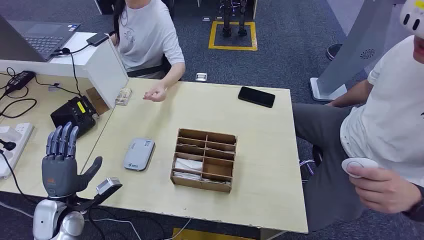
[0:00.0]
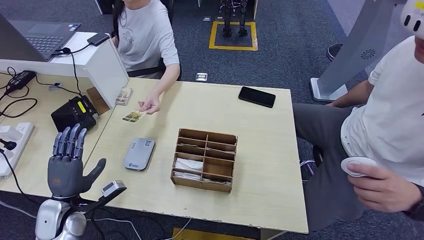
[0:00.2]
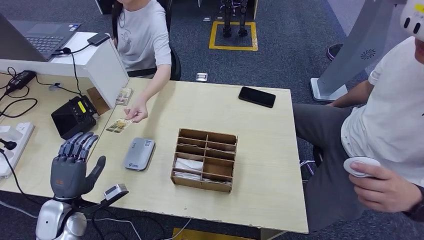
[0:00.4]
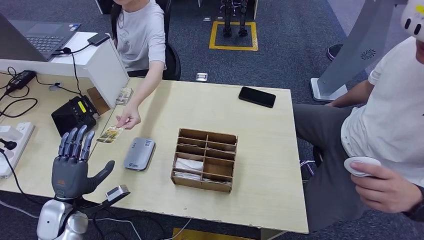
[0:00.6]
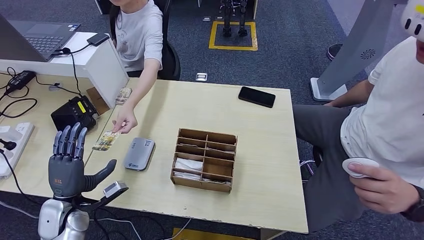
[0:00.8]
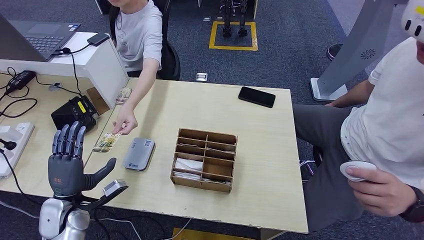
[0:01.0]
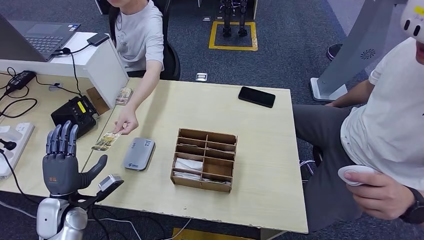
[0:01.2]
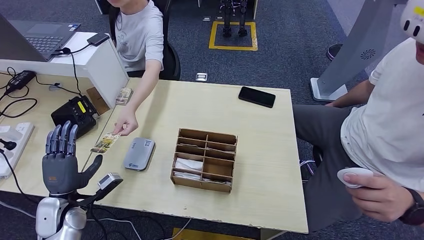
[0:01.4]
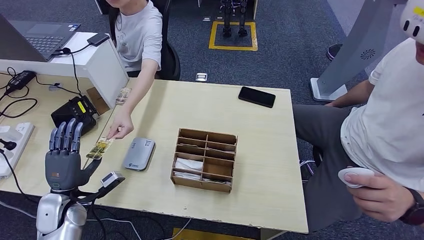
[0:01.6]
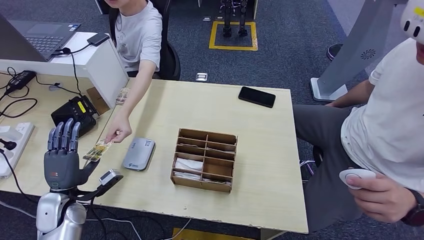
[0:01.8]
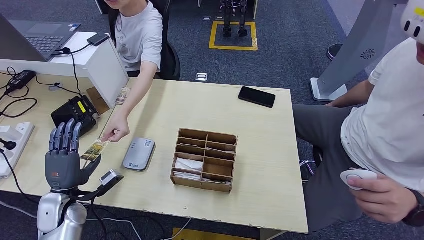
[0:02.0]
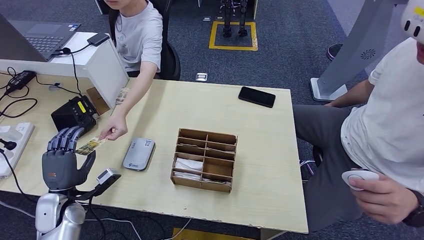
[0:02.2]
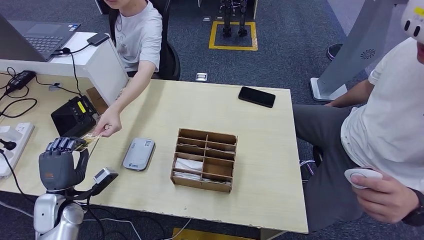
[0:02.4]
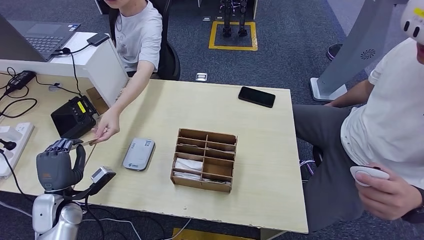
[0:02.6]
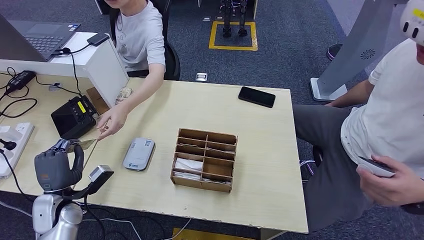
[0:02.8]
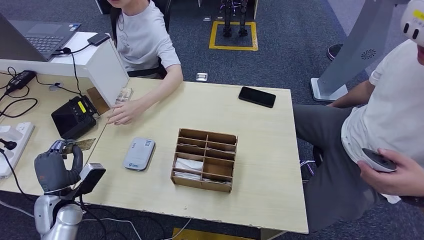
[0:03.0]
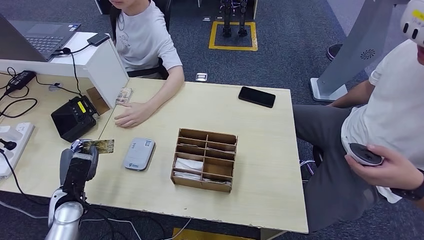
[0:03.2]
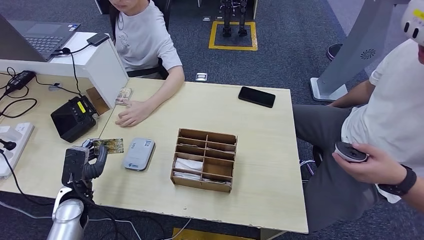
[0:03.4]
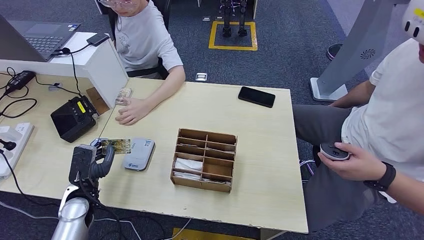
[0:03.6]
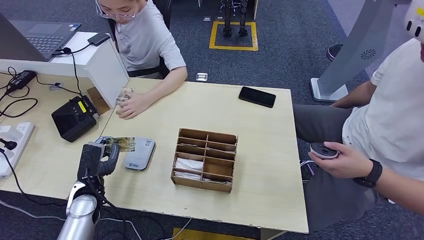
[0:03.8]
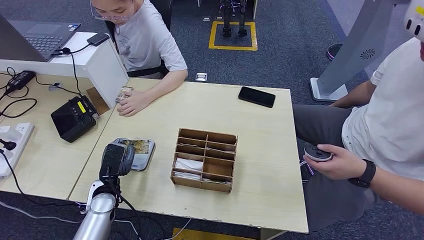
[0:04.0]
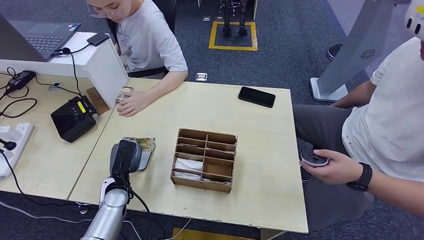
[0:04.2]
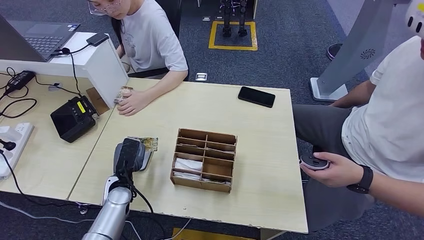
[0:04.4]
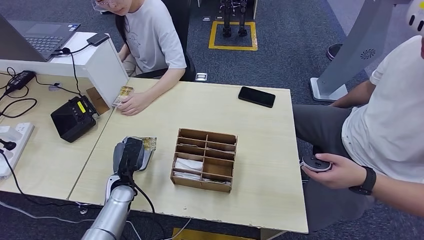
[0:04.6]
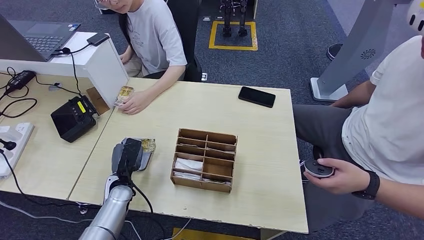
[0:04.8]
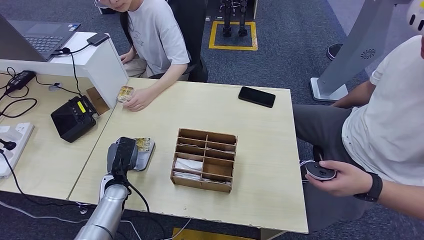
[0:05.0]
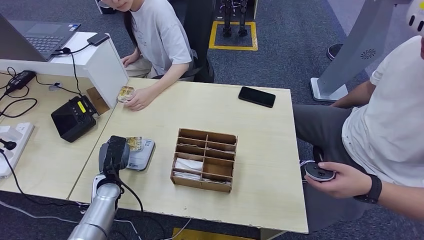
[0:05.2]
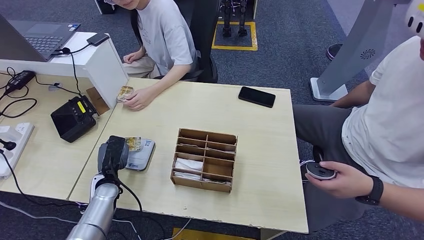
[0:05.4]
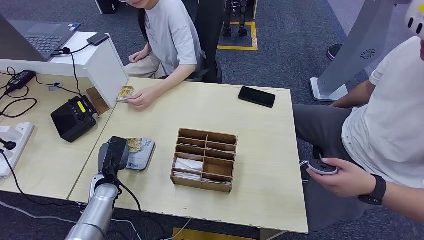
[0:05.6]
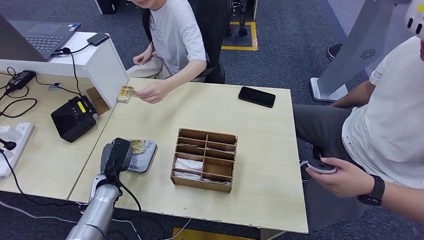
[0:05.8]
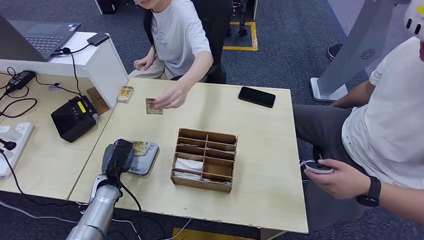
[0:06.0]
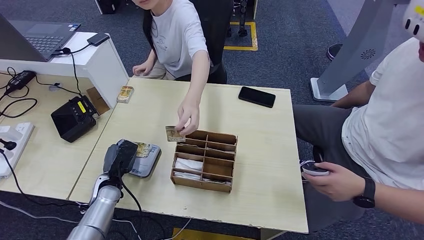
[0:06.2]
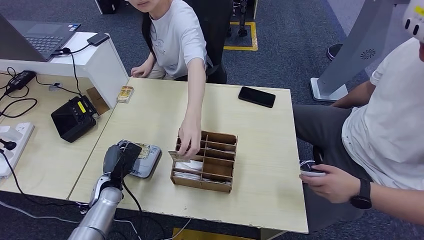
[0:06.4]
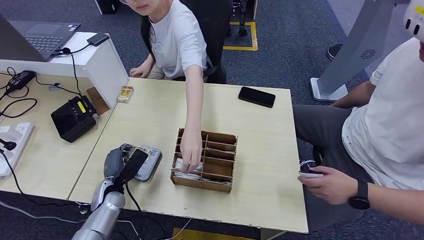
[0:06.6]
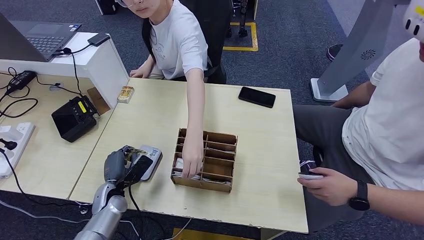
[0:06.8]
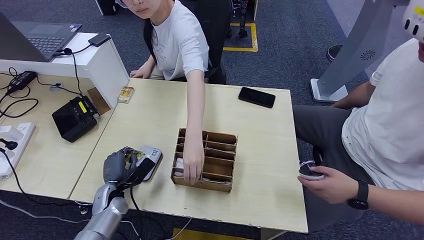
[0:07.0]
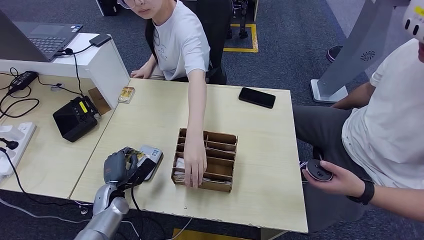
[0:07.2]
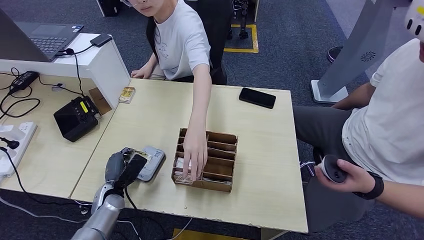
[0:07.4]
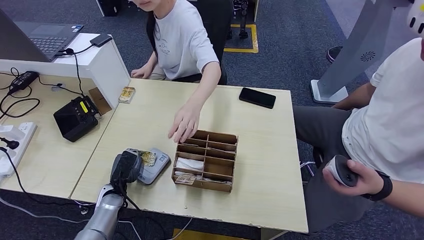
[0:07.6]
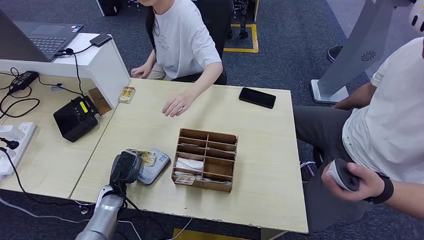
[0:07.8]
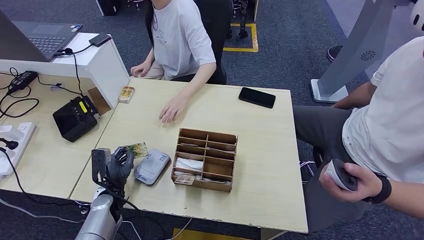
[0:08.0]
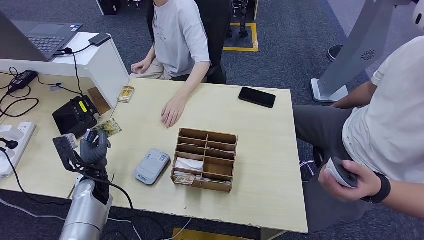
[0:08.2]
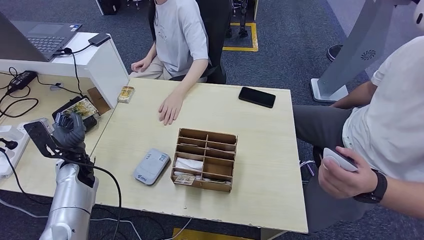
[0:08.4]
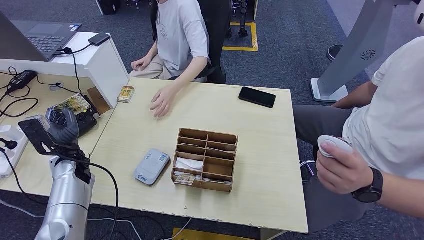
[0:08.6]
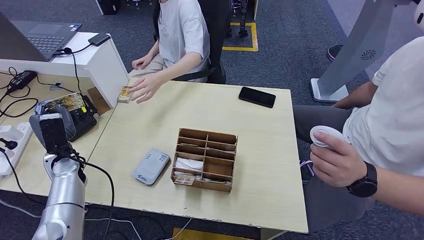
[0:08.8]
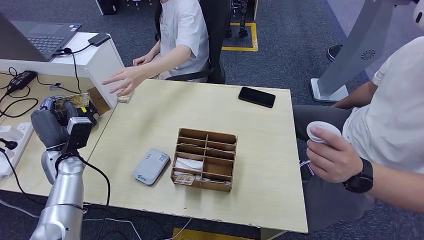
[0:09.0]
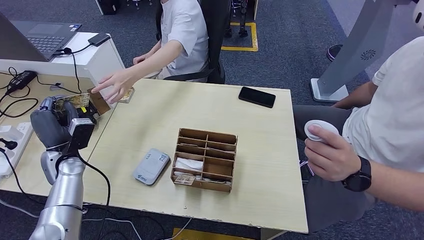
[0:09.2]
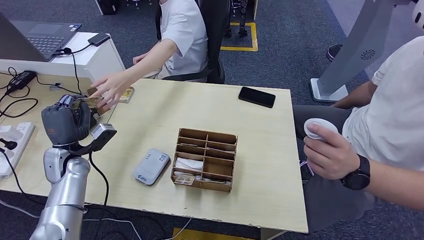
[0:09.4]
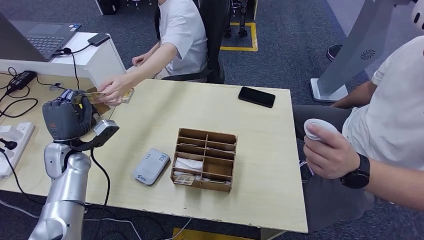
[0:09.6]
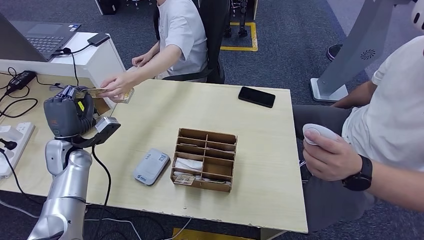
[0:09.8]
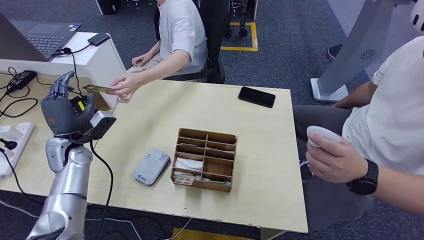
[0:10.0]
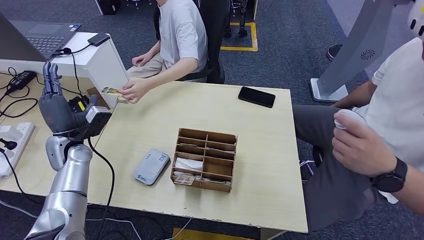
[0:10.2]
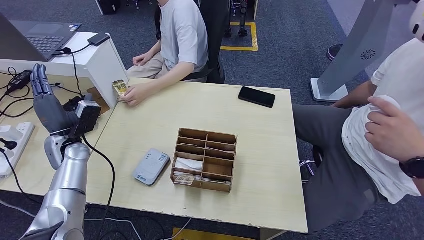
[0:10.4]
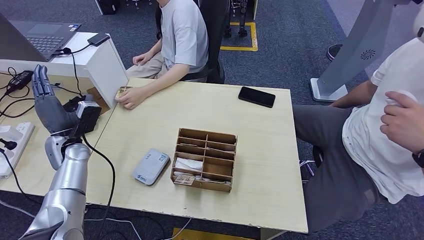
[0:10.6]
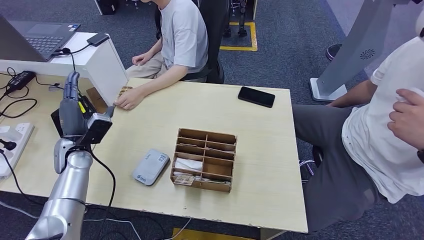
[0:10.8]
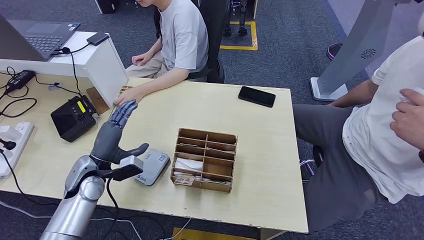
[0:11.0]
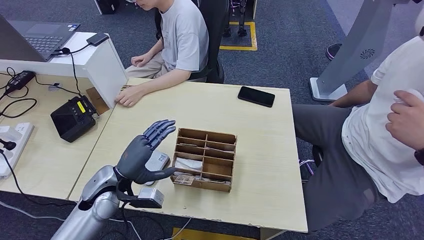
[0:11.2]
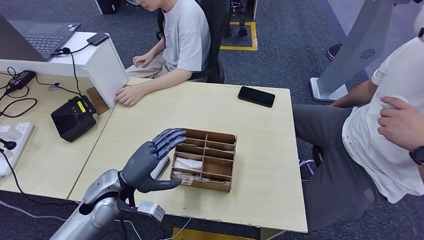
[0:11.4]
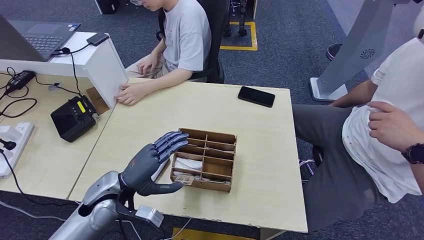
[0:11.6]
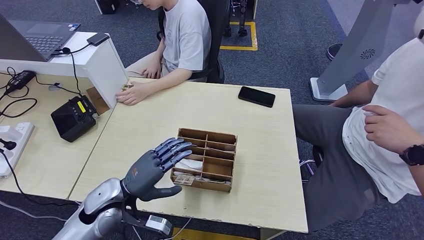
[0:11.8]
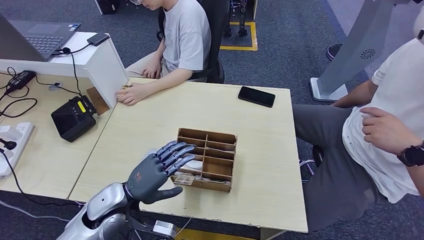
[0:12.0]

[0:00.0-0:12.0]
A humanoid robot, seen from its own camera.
Step, 0:00.0 to 0:03.2: Take the ID card from the person's hand.
Step, 0:03.4 to 0:05.4: Place the ID card on the card reader.
Step, 0:05.8 to 0:10.0: Hand the ID card to the person.
0:01.6 to 0:03.0: The hands stay close to where they were, moving slightly.
0:03.0 to 0:04.4: The left hand moves to the right and forward, some 15 cm.
0:04.4 to 0:06.0: The left hand moves to the left, approximately 5 cm.
0:10.4 to 0:12.0: The left hand shifts roughly 20 cm to the right and backward.

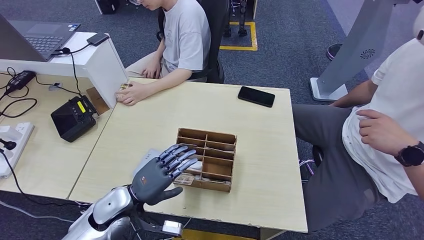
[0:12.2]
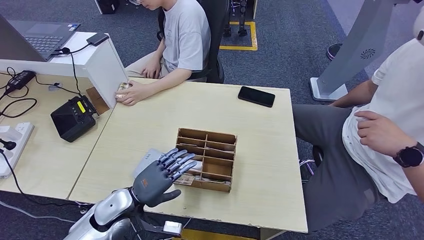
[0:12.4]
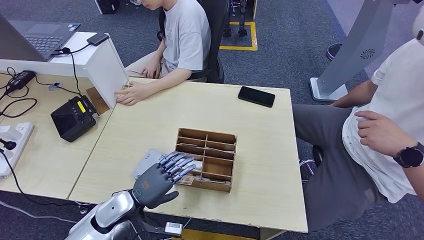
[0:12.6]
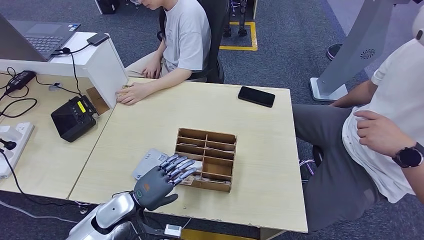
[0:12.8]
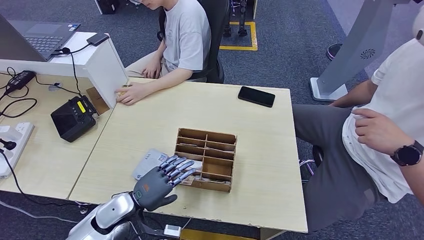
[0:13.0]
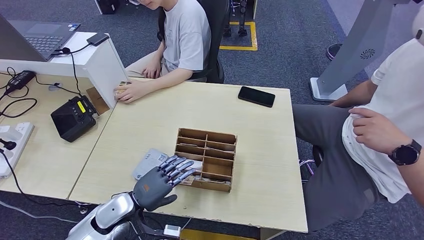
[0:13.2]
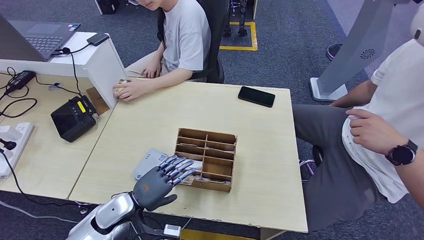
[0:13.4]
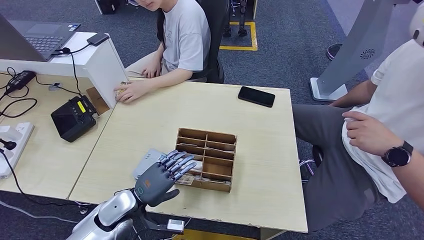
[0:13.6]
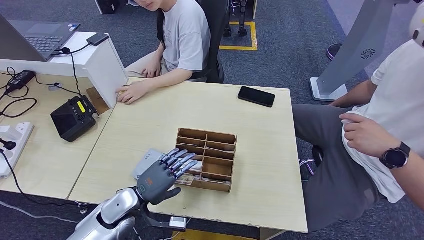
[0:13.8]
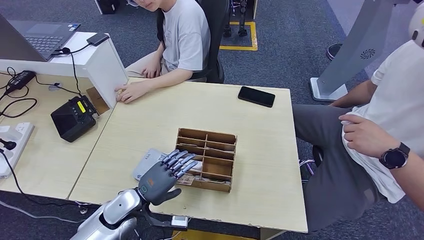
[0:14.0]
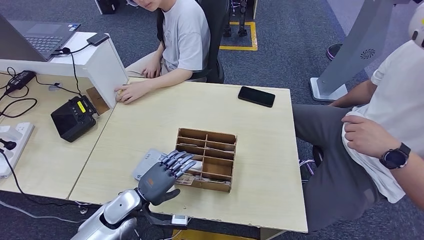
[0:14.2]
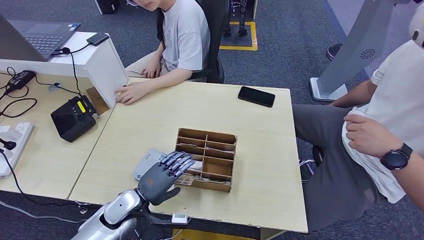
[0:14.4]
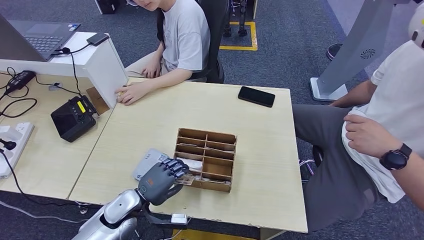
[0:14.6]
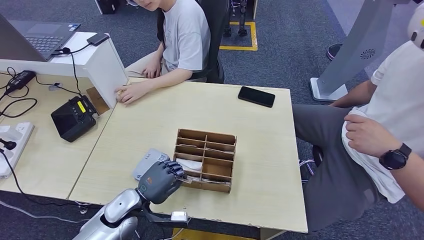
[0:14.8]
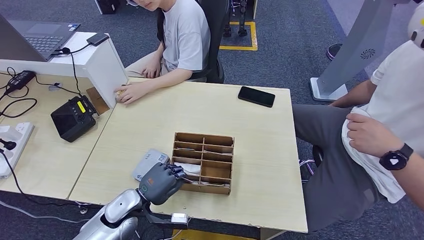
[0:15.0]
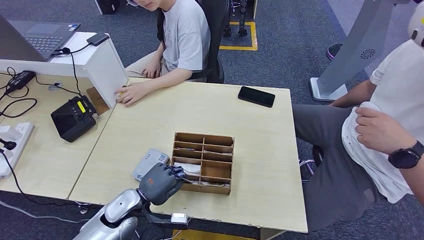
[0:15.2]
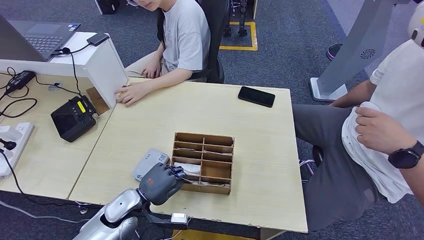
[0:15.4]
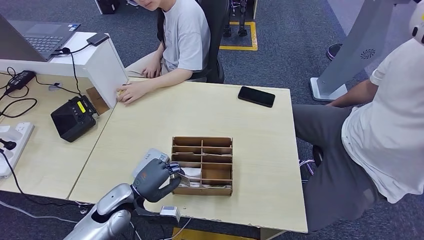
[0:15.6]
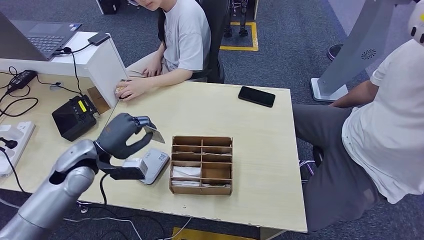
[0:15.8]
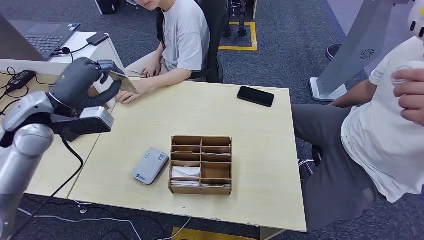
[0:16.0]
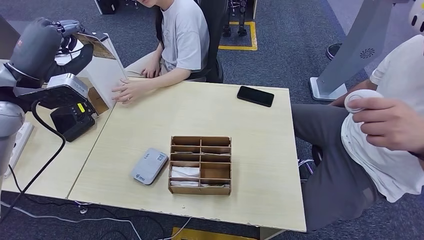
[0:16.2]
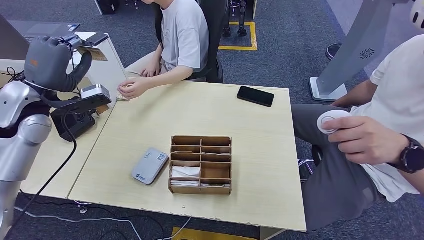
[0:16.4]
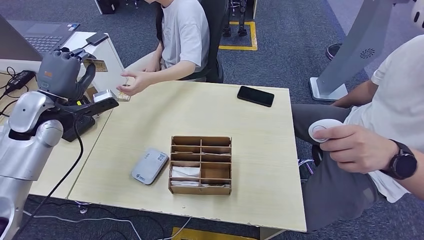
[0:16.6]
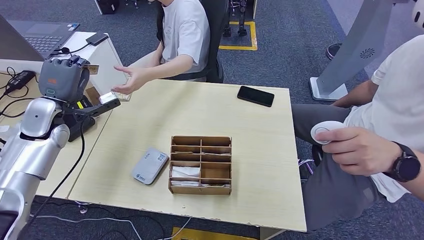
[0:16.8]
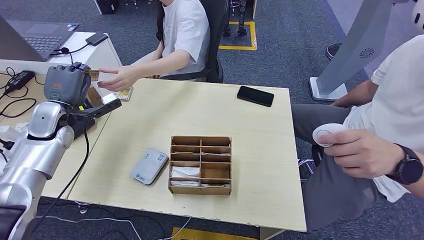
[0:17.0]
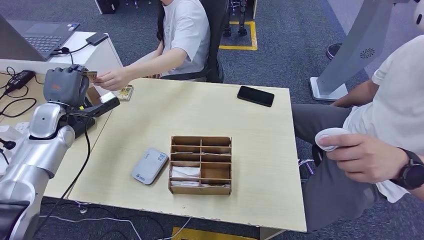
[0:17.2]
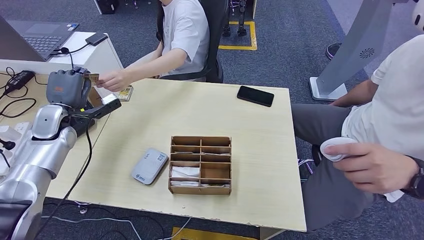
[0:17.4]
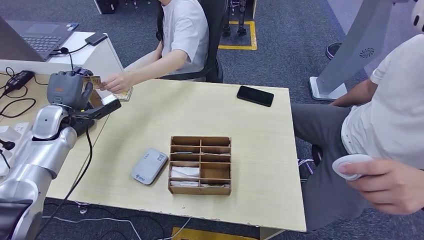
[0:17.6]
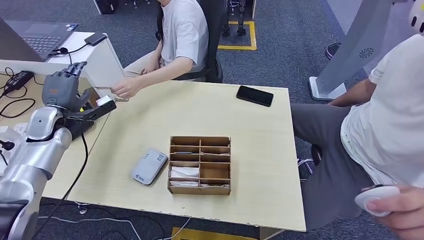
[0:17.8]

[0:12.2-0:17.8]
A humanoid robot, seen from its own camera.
Step, 0:12.2 to 0:15.4: Pick up the room key from the key card box.
Step, 0:15.8 to 0:17.6: Hand the room key to the person.
0:12.2 to 0:15.0: The hands make only small movements.
